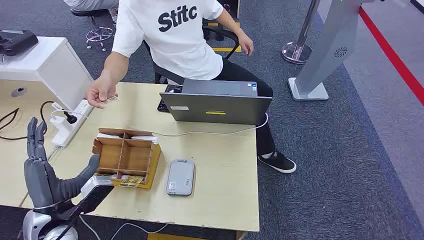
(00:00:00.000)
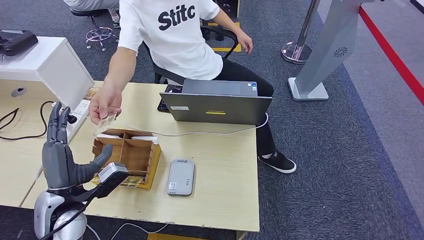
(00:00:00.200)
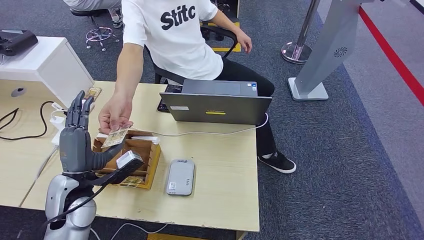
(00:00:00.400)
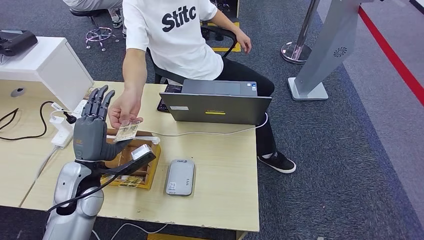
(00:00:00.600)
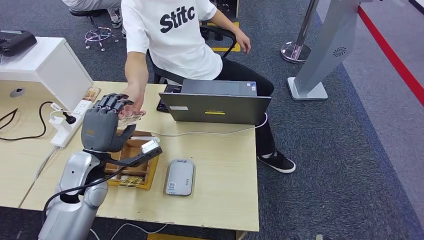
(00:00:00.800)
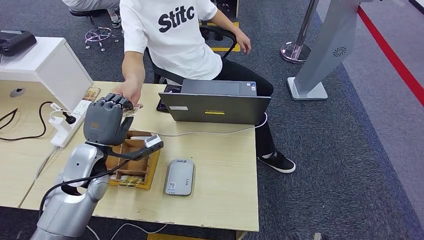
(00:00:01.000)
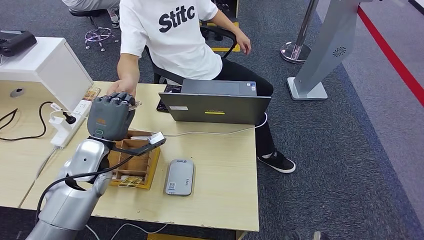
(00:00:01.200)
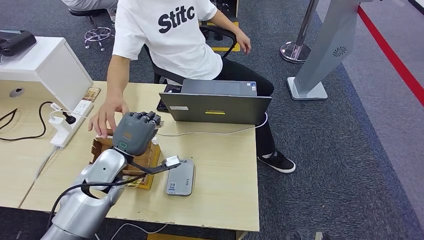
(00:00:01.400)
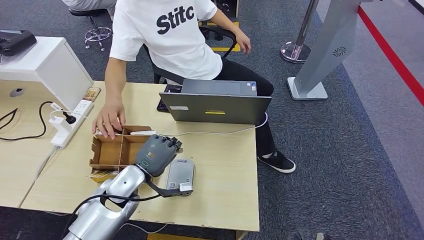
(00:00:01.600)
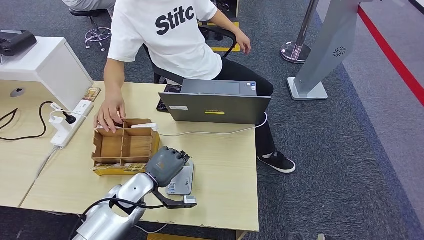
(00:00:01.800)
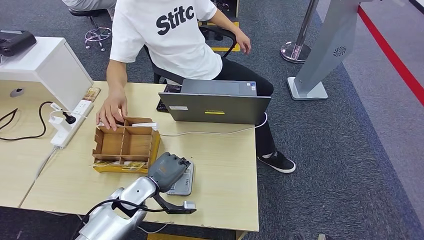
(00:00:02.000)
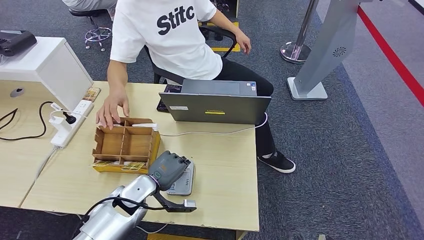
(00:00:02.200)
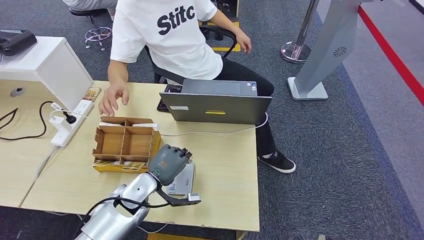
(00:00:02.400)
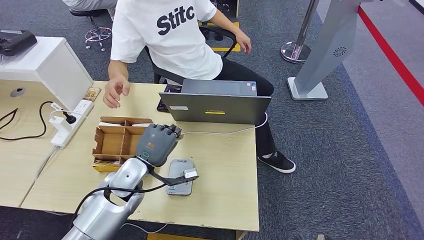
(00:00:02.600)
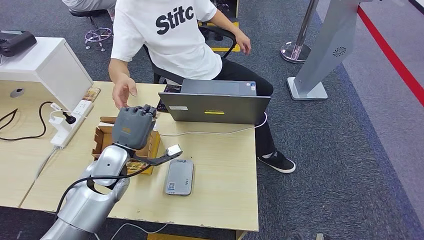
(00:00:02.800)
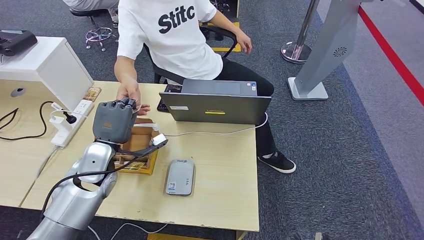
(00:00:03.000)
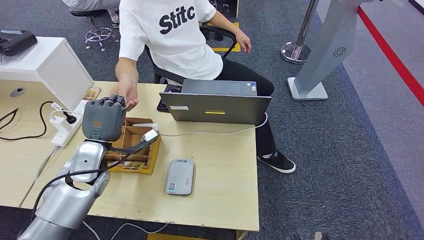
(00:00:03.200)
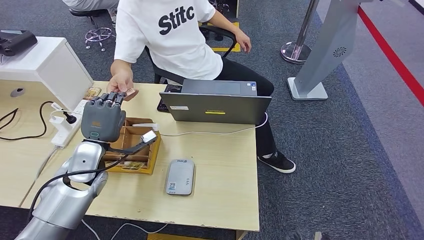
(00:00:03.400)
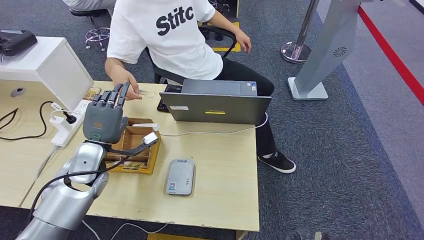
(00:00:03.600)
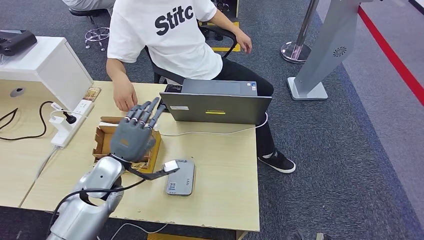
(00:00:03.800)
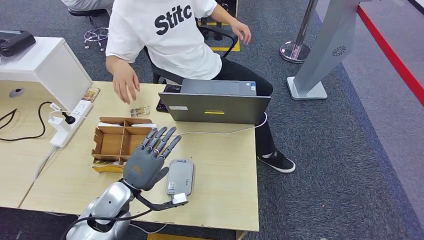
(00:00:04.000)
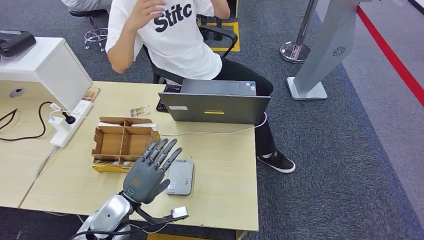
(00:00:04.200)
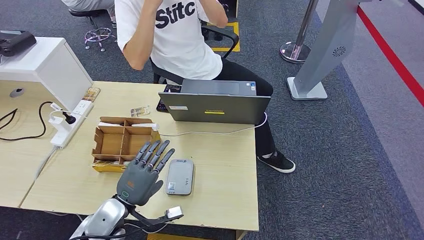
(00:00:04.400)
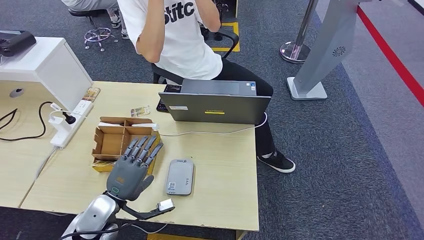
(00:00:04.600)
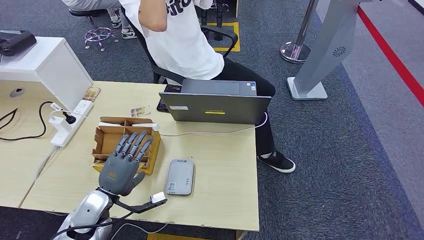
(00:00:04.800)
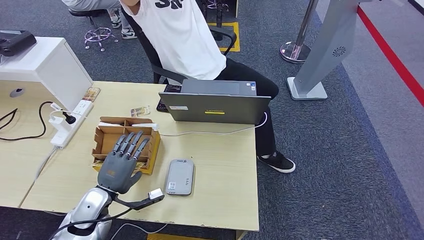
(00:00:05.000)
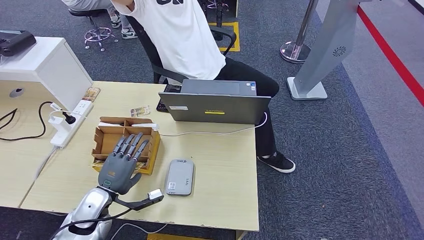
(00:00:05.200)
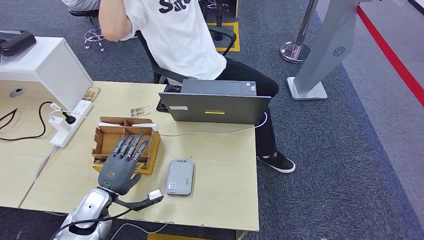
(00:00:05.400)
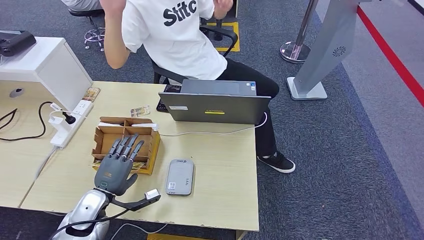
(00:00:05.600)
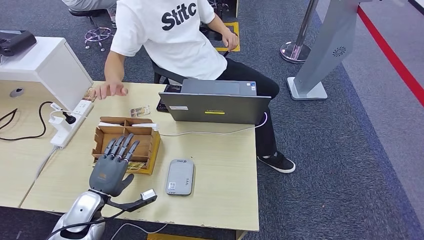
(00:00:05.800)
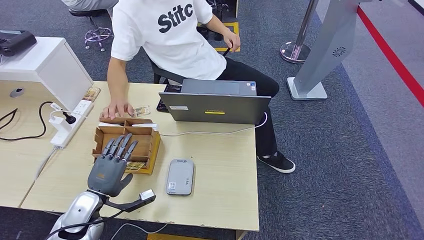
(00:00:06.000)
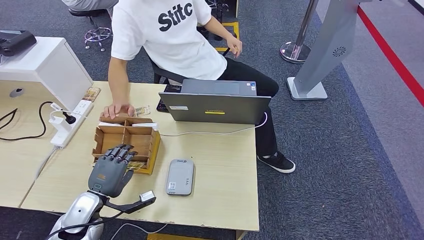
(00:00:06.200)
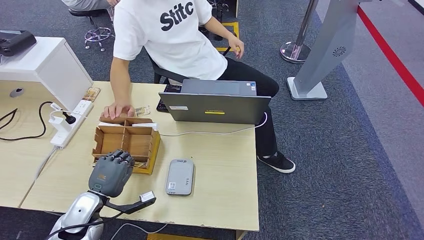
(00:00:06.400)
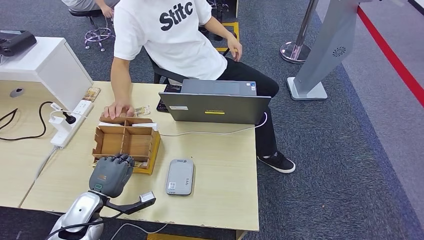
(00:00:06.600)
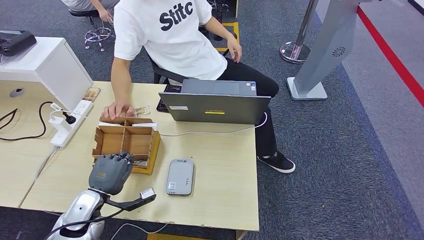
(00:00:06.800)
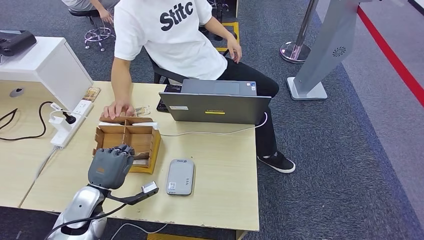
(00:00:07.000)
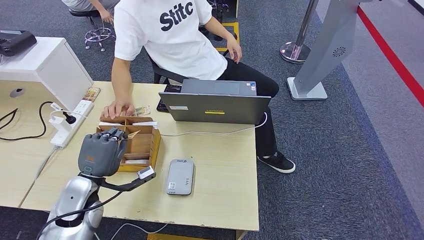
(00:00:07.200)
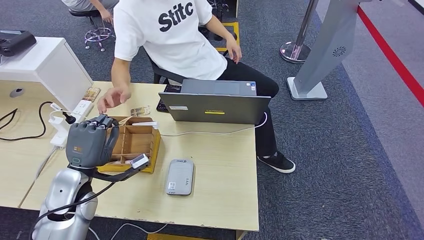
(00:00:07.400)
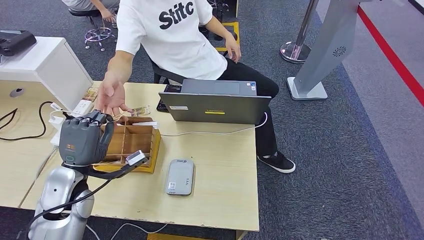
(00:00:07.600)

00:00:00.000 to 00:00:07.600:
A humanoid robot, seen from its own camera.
Step, 00:00:00.000 to 00:00:01.200: Take the ID card from the person's hand.
Step, 00:00:01.400 to 00:00:02.600: Place the ID card on the card reader.
Step, 00:00:02.800 to 00:00:04.400: Hand the ID card to the person.
Step, 00:00:05.200 to 00:00:07.000: Pick up the room key from the key card box.
Step, 00:00:07.200 to 00:00:07.600: Hand the room key to the person.
00:00:01.600 to 00:00:03.000: The left hand goes about 10 cm upward and to the left.
00:00:03.000 to 00:00:04.600: The left hand goes some 15 cm backward and downward.
00:00:04.600 to 00:00:06.000: The left hand shifts approximately 5 cm to the left.
00:00:06.000 to 00:00:07.600: The left hand travels upward by roughly 10 cm.
